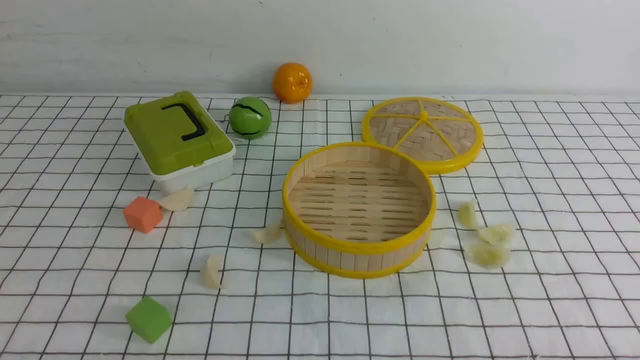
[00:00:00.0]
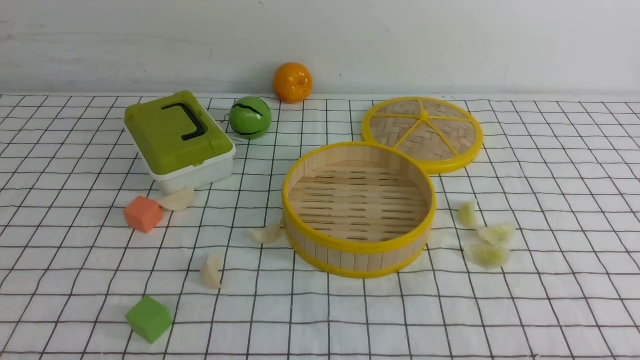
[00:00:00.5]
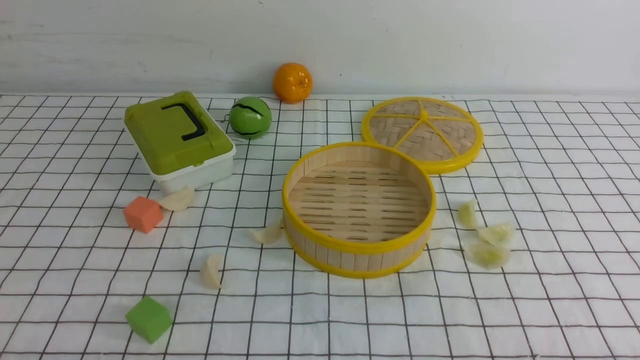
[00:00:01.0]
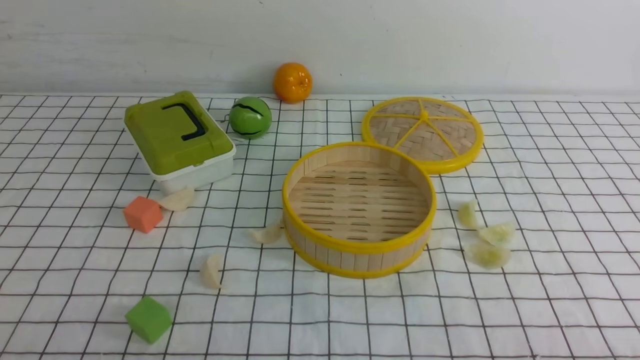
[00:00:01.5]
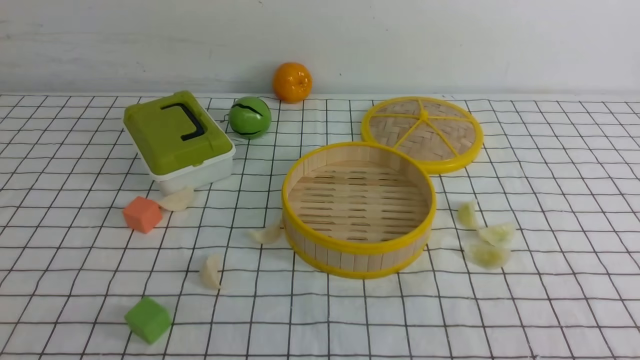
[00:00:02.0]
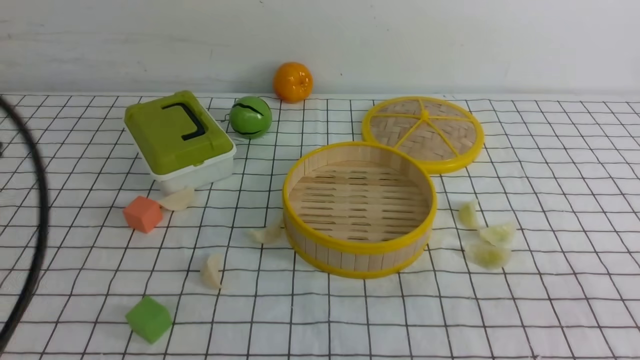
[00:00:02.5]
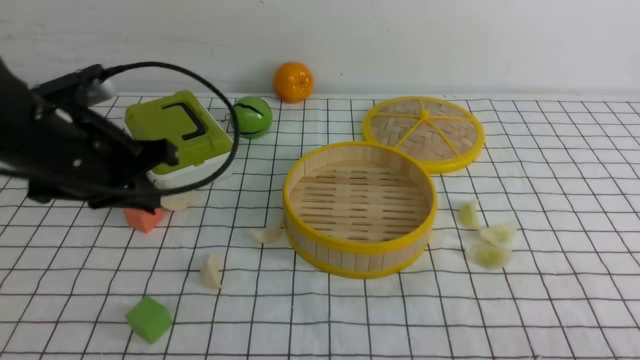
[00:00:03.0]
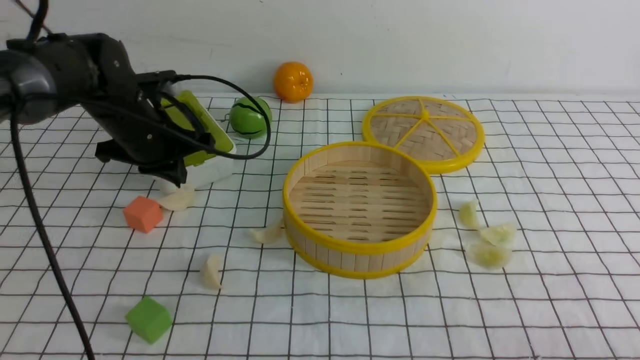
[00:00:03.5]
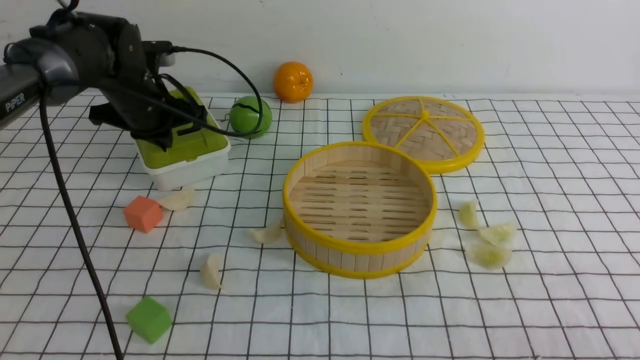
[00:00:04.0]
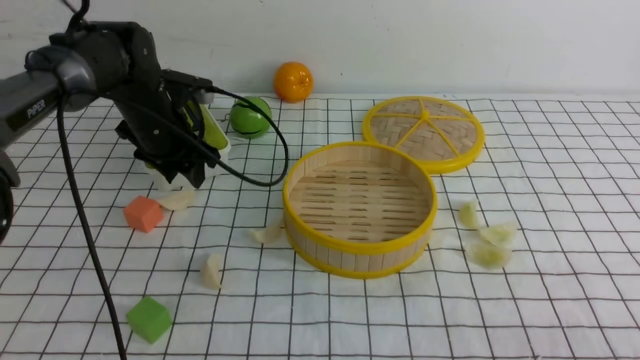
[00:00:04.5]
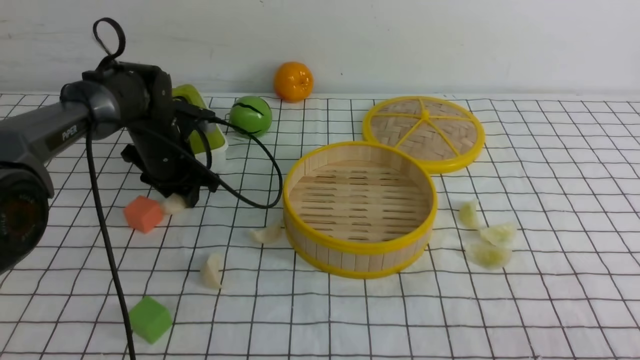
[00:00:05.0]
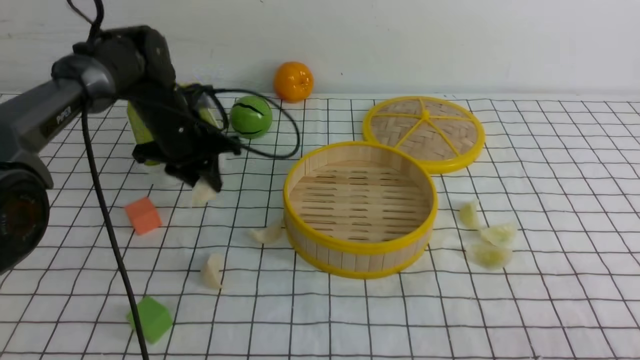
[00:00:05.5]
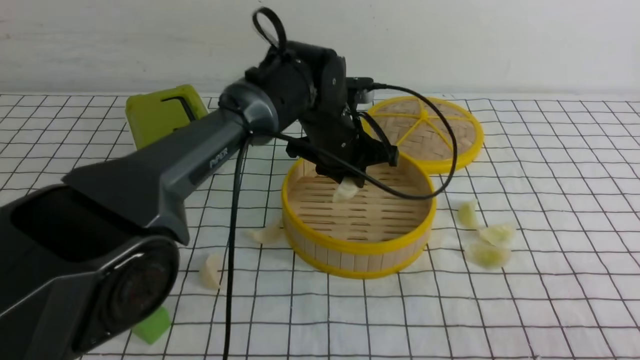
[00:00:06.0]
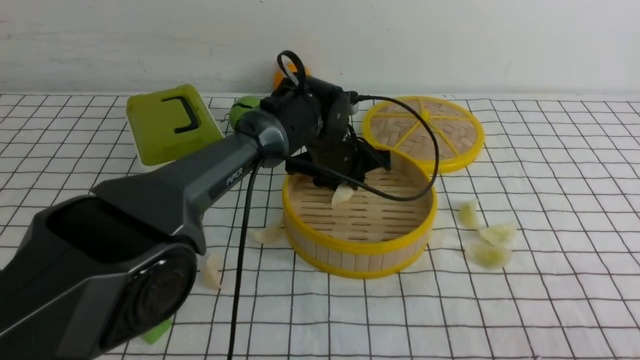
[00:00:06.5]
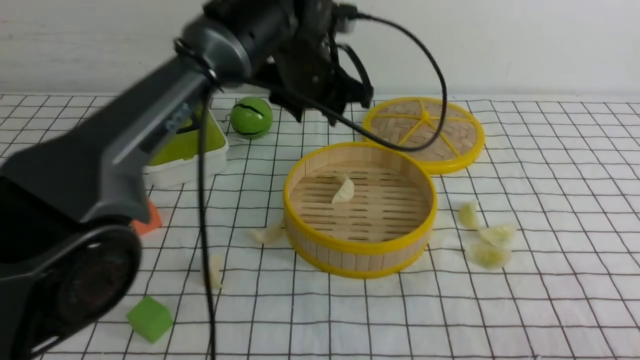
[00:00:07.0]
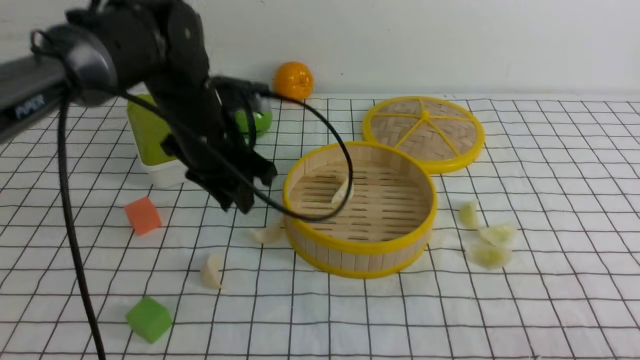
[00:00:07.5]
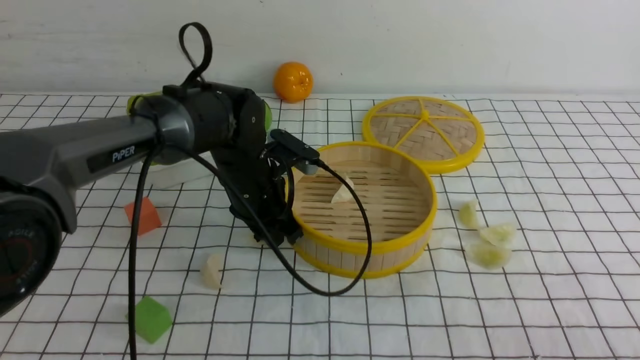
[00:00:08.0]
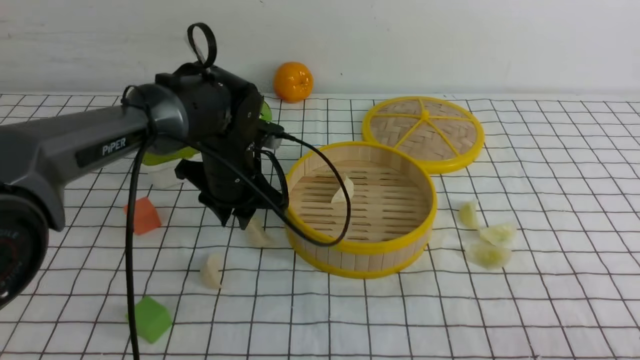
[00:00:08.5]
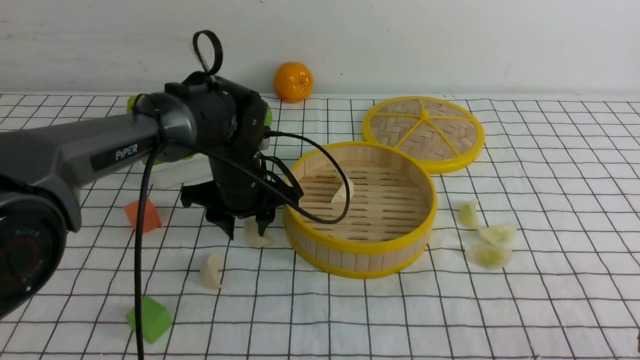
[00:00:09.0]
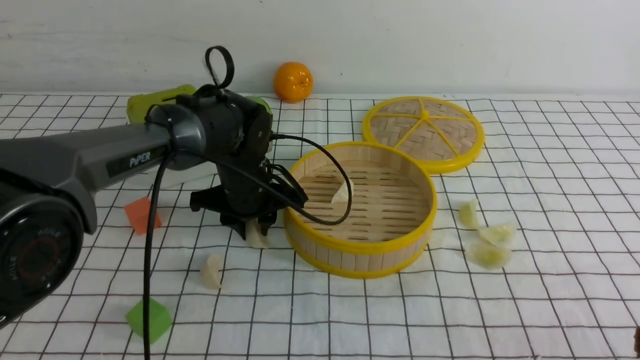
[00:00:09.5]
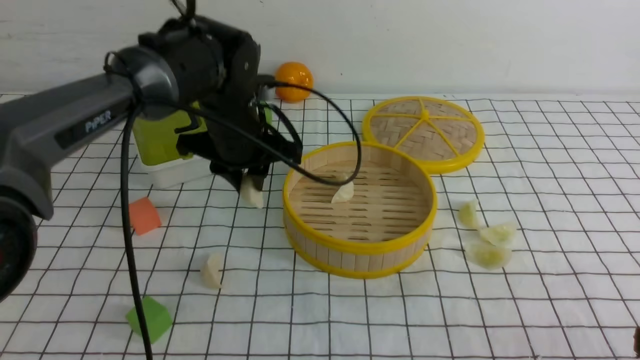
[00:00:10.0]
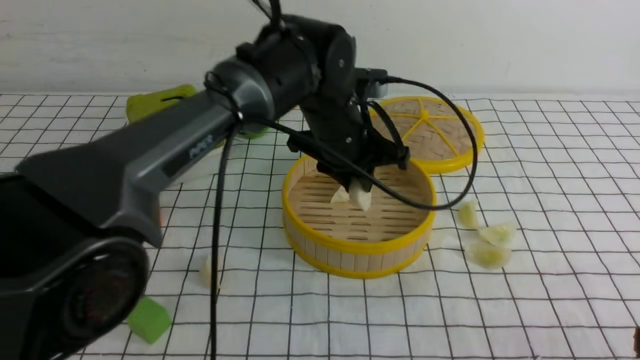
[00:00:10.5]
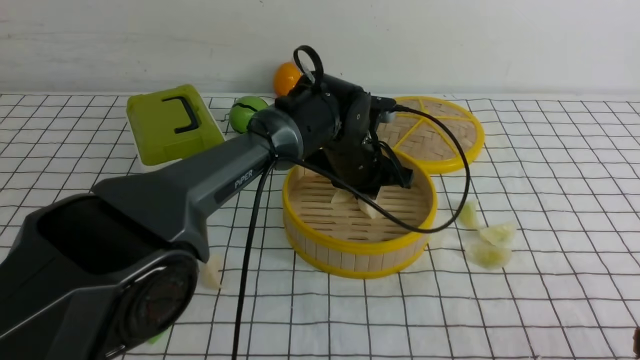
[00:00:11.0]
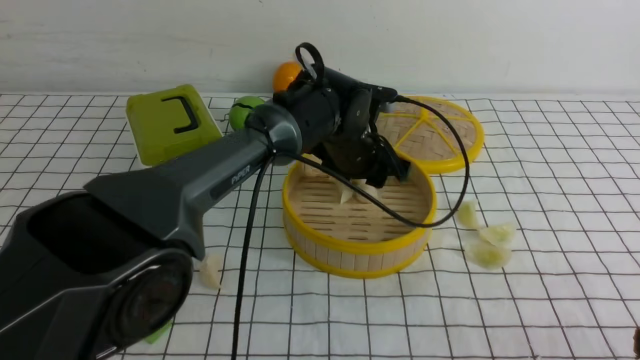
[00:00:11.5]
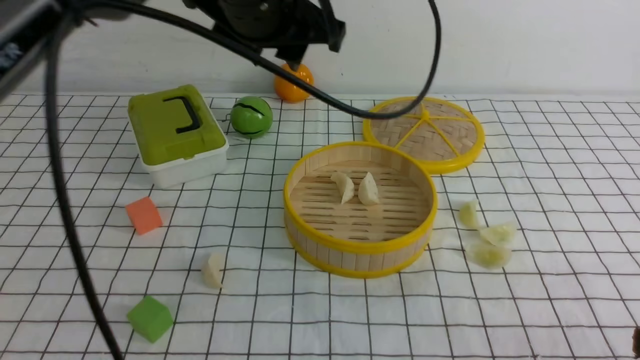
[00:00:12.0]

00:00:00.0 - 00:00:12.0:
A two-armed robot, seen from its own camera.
Task of the whole recording: put the dumplings into the steamer on the table with the white tablecloth.
Step, 00:00:00.0 - 00:00:05.0: use the left arm to grab a dumpling.
Step, 00:00:05.5 - 00:00:06.5: use the left arm to put the dumpling into the steamer.
Step, 00:00:07.0 - 00:00:10.0: use the left arm to grab a dumpling.
Step, 00:00:10.5 - 00:00:11.0: use the left arm to put the dumpling into the steamer.
00:00:02.0 - 00:00:04.0: The left gripper heads forward, covering some 40 cm.
00:00:04.0 - 00:00:06.0: The left gripper travels to the right by approximately 20 cm, and opens, then closes once more.
00:00:06.0 - 00:00:08.0: The left gripper travels to the left by roughly 10 cm, and goes upward and returns, roughly 10 cm each way.
00:00:08.0 - 00:00:10.0: The left gripper moves upward, about 5 cm.
00:00:10.0 - 00:00:12.0: The left gripper travels upward by roughly 15 cm, and opens its fingers.

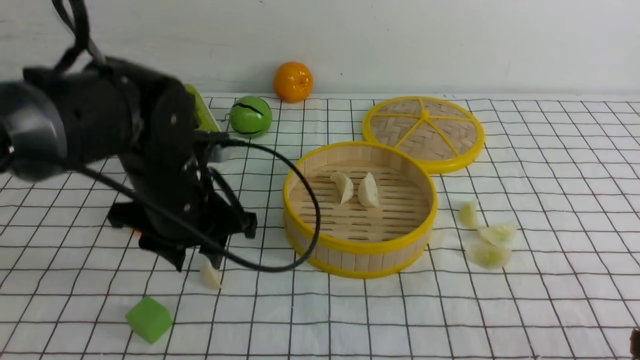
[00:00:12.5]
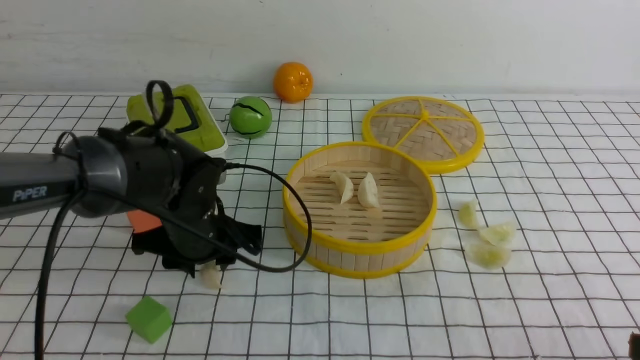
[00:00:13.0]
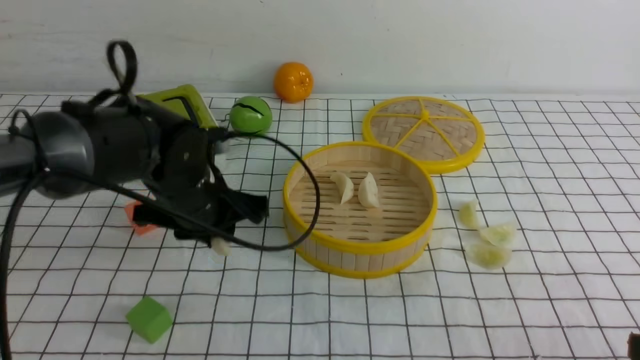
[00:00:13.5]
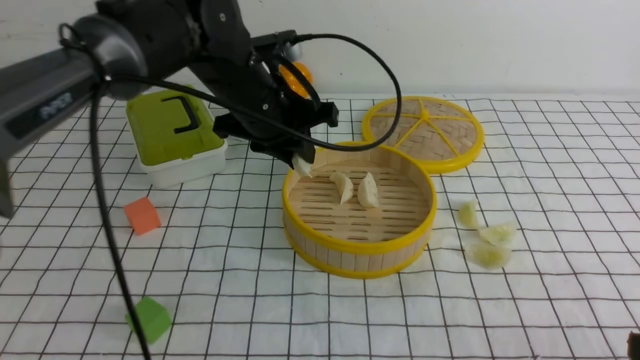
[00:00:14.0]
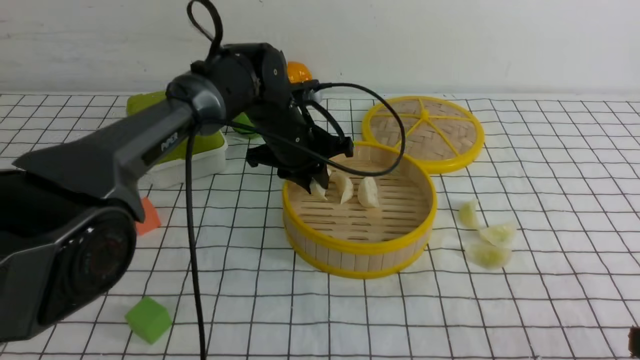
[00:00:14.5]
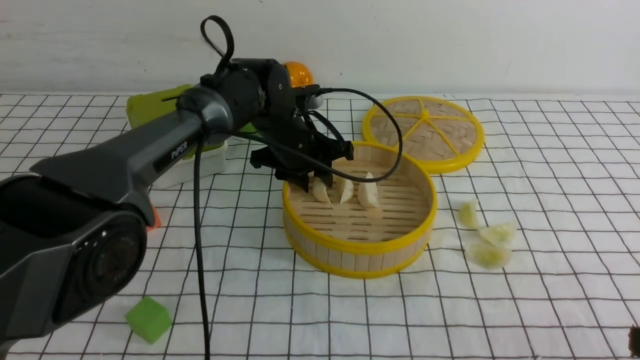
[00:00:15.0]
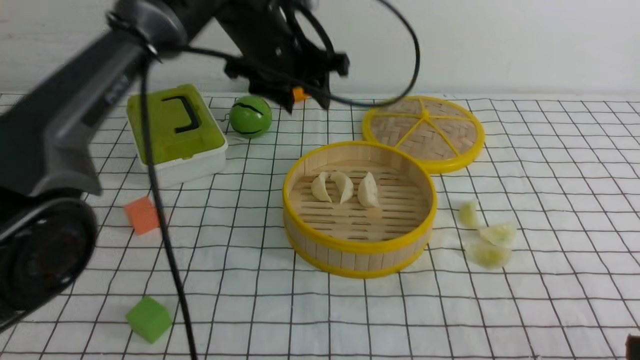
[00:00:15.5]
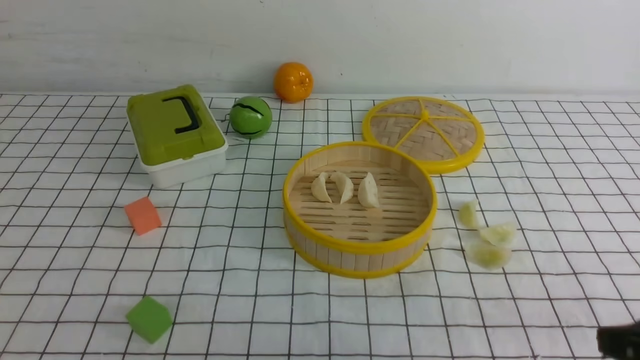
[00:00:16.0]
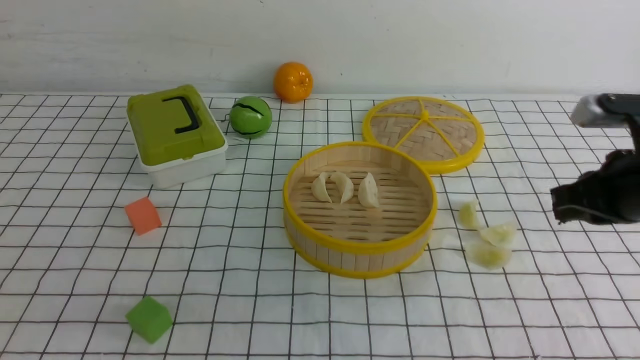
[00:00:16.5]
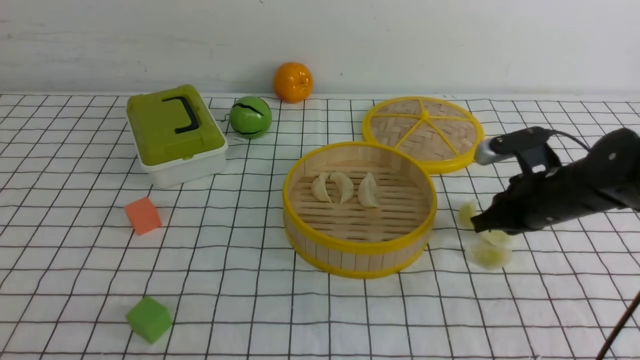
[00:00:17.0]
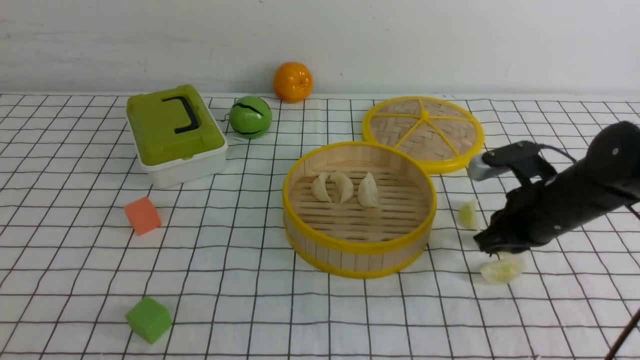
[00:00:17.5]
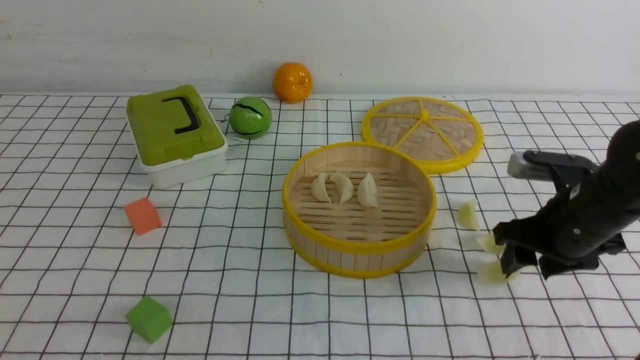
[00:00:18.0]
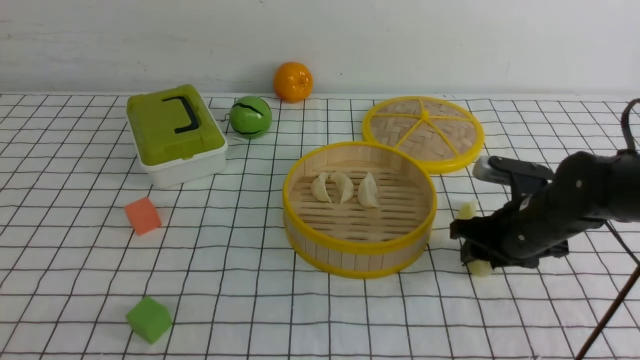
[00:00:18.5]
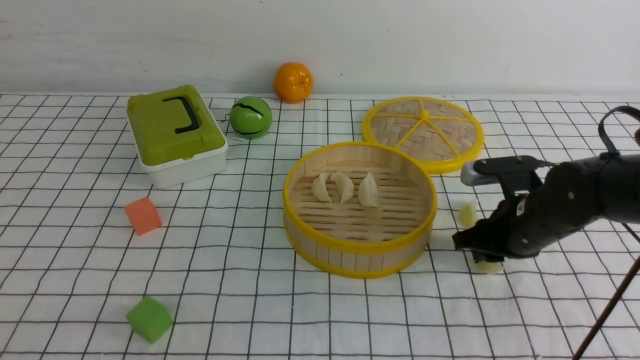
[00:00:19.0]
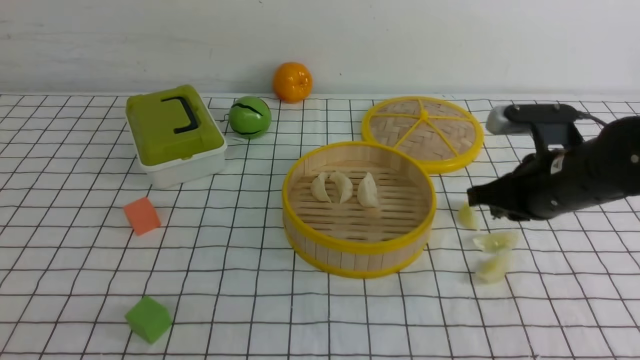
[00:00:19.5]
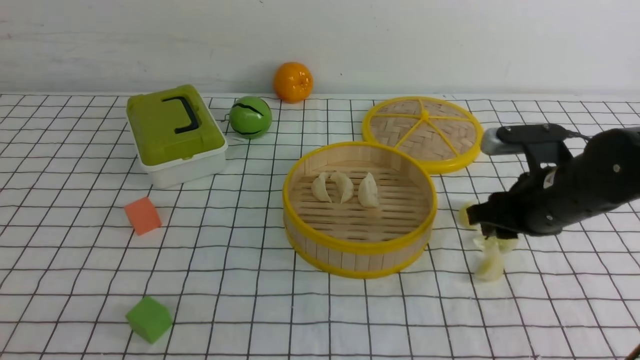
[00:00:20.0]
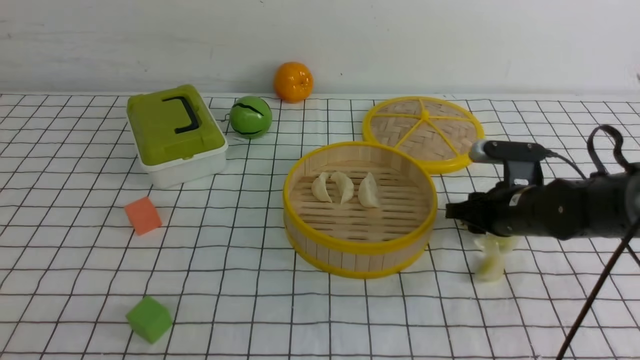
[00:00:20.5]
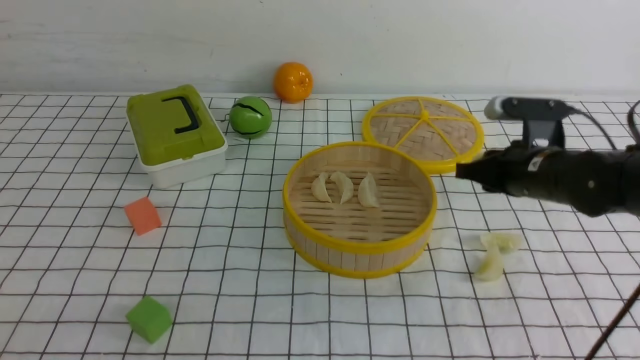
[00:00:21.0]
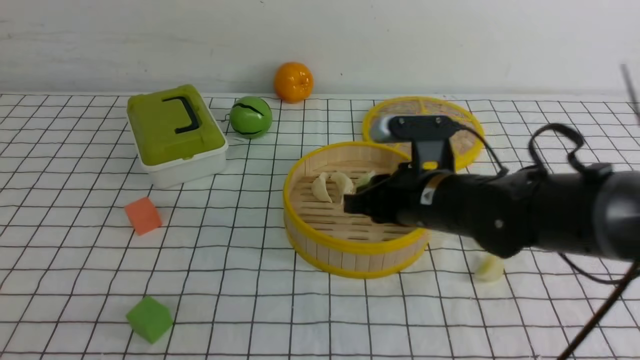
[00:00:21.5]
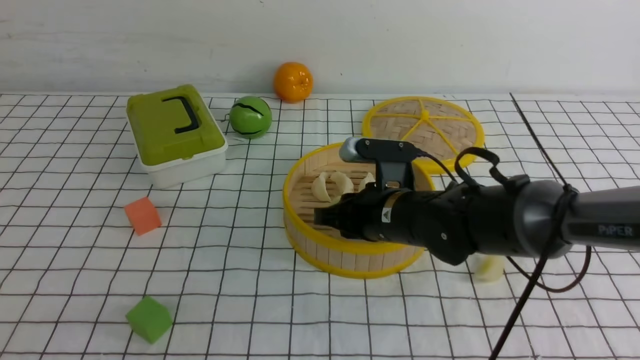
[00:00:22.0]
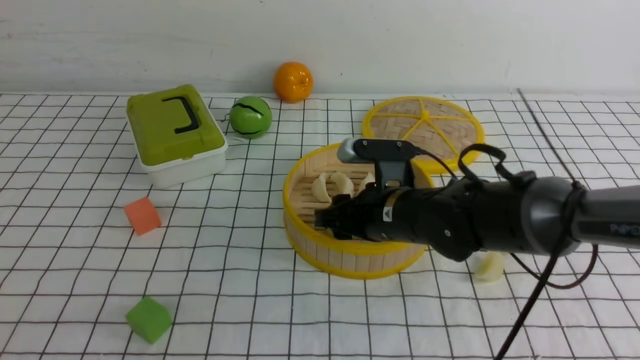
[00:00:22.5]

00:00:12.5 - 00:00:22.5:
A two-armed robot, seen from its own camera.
Task of the whole recording: put the dumplings into the steamer on the table with the white tablecloth.
Step, 00:00:13.5 - 00:00:15.0: use the left arm to put the dumpling into the steamer.
Step, 00:00:15.5 - 00:00:21.0: use the right arm to grab a dumpling.
00:00:12.5 - 00:00:14.5: The left gripper travels forward and to the right by roughly 15 cm, and closes its fingers.
00:00:14.5 - 00:00:16.5: The left gripper heads backward and to the left, covering roughly 50 cm, and closes up. The right gripper travels forward by roughly 20 cm, and closes.
00:00:16.5 - 00:00:18.5: The right gripper shifts some 15 cm downward, to the left and forward, and opens its fingers.
00:00:18.5 - 00:00:20.5: The right gripper moves approximately 5 cm upward and comes back, and closes, then reopens.
00:00:20.5 - 00:00:22.5: The right gripper shifts roughly 15 cm to the left.
